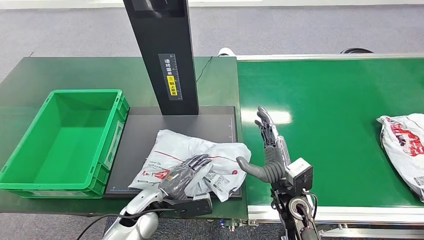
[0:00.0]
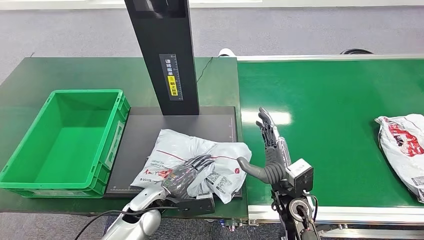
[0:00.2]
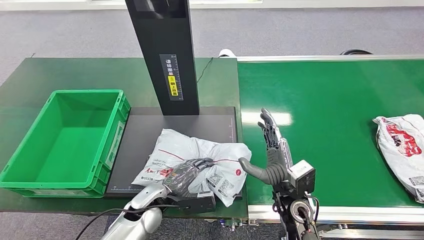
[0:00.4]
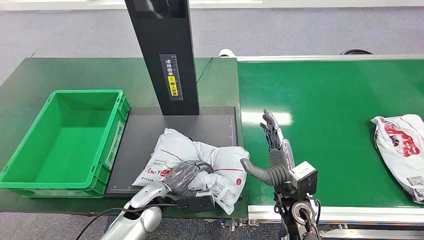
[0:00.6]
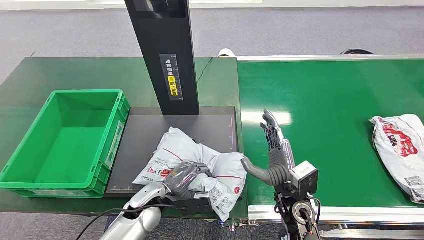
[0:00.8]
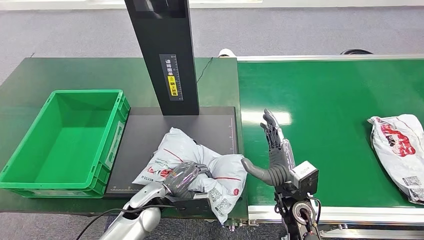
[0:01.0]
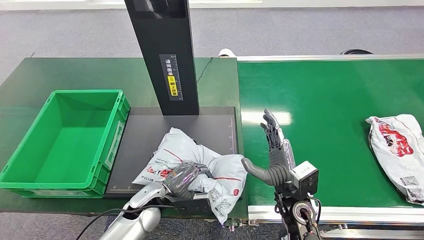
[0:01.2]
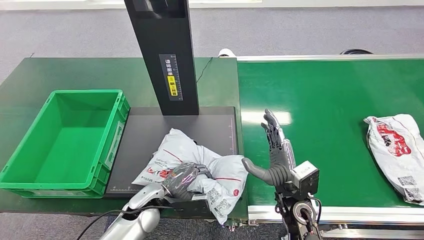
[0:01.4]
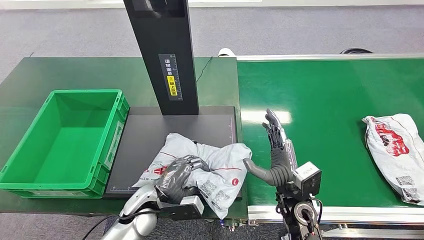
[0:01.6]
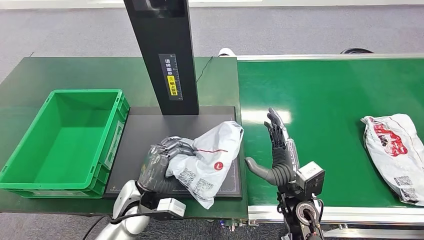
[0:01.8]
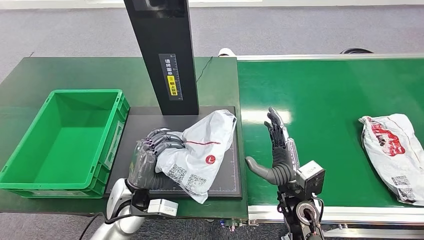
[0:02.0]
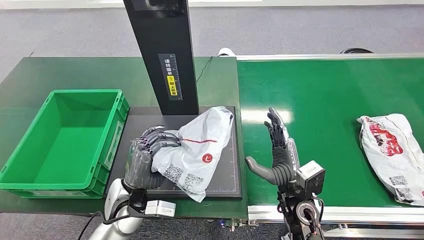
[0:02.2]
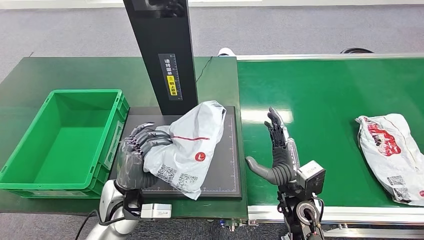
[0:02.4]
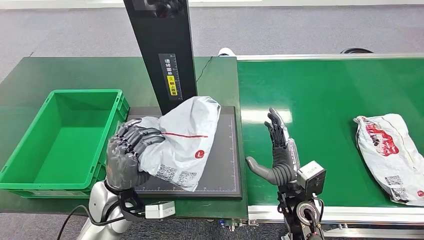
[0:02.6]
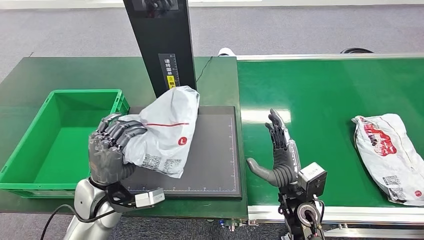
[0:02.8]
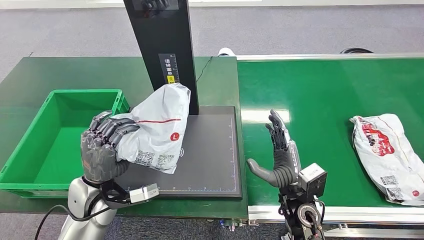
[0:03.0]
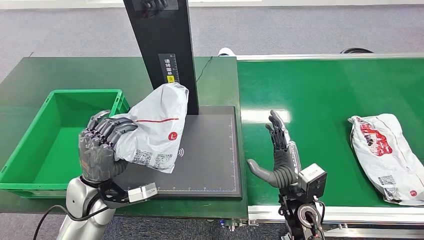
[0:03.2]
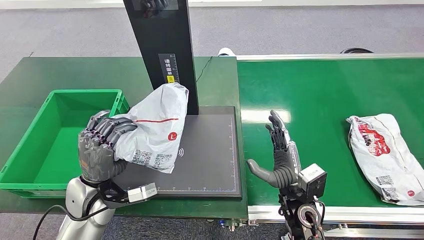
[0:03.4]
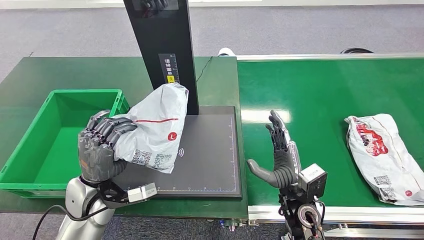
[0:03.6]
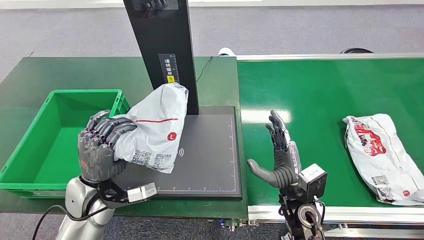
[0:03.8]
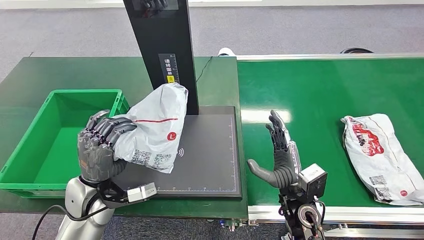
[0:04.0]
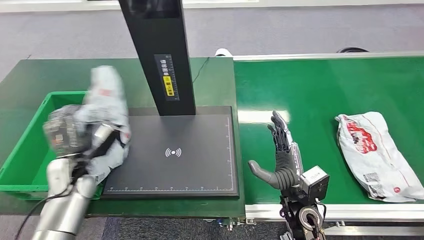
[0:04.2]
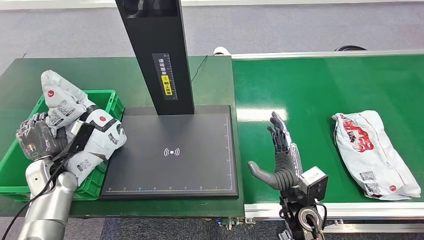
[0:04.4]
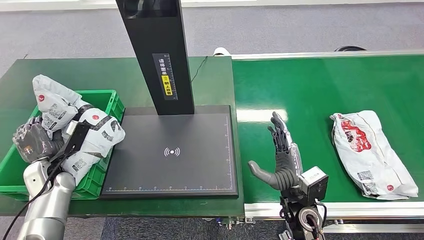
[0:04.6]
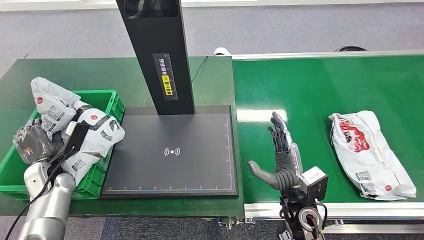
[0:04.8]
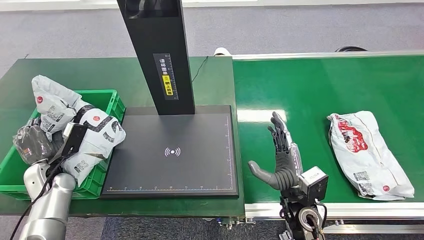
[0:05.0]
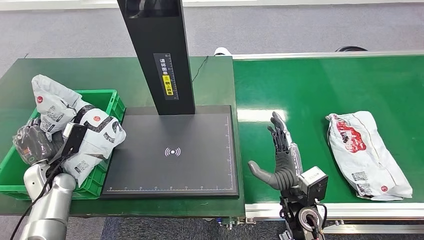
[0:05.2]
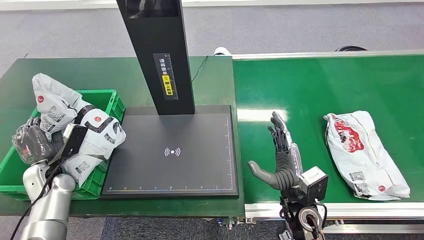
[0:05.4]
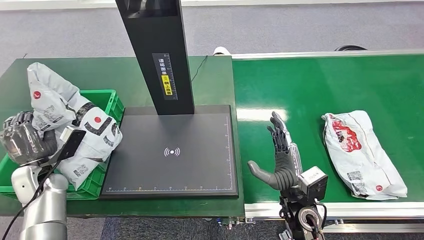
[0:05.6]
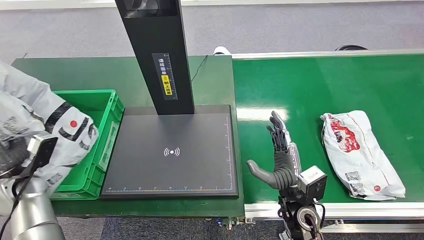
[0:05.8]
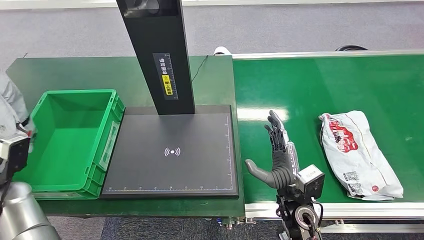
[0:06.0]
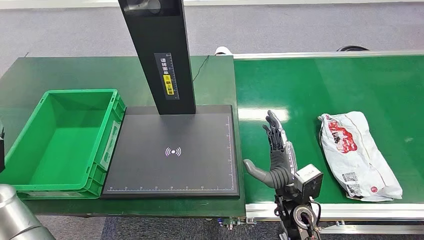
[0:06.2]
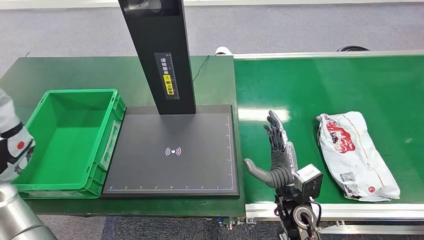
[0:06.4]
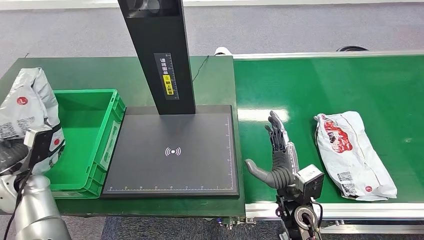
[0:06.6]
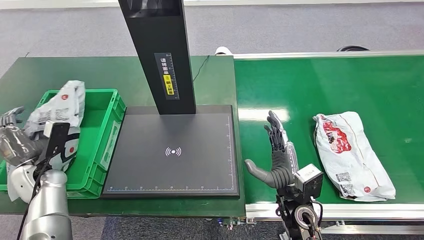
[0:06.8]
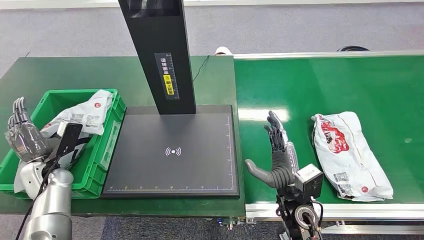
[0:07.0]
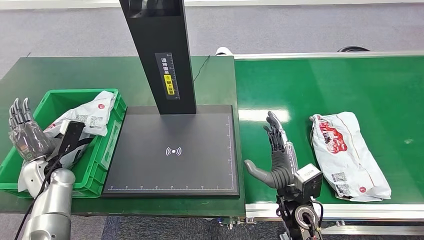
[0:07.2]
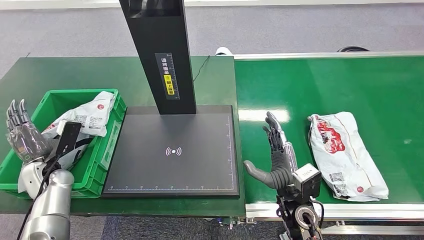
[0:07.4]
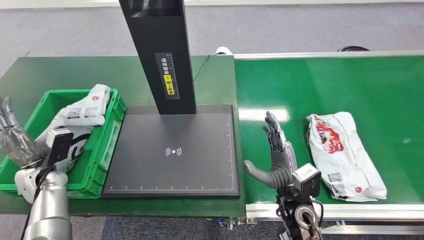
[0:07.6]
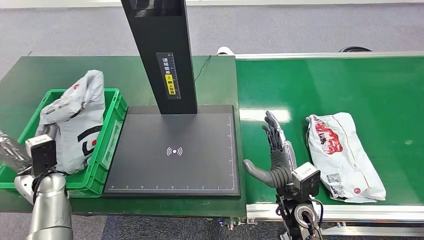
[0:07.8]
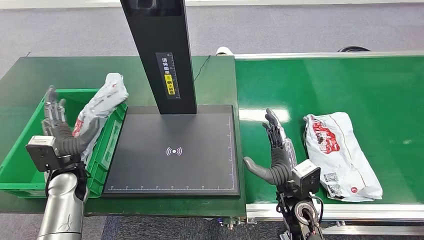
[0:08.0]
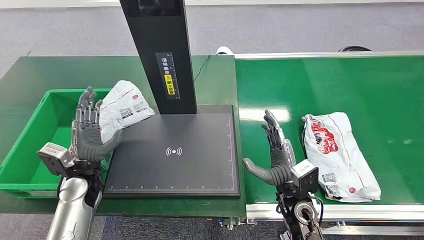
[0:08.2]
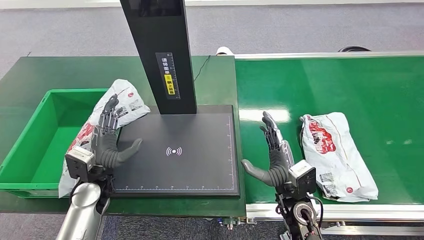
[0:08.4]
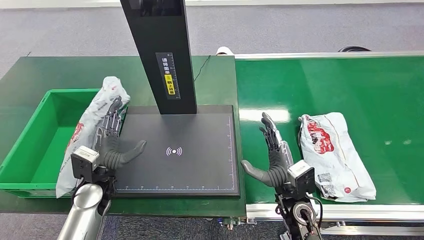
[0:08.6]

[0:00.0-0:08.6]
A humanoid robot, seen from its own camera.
Step, 0:00.0 to 0:02.6: Pick up the package from the inbound machine.
Step, 0:02.8 to 0:08.6: Place the package into the parcel locker.
0:00.0 to 0:01.4: The hands move only a little.
0:04.4 to 0:05.8: The left hand ends up about 5 cm from where it was.
0:07.2 to 0:08.6: The left hand goes some 15 cm to the right.
